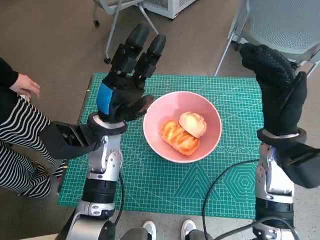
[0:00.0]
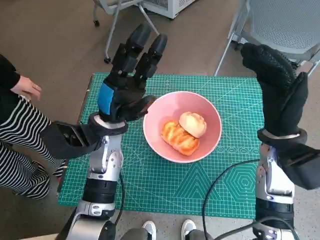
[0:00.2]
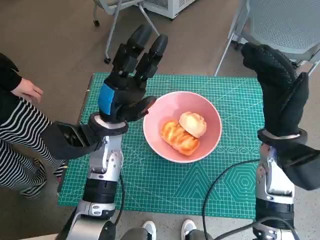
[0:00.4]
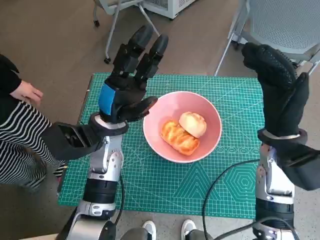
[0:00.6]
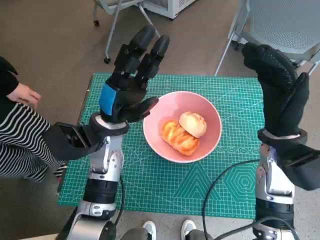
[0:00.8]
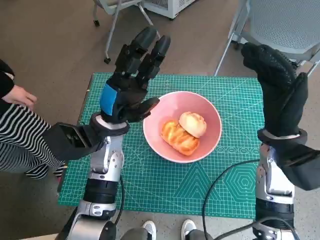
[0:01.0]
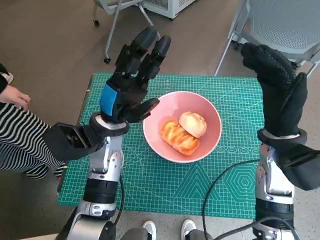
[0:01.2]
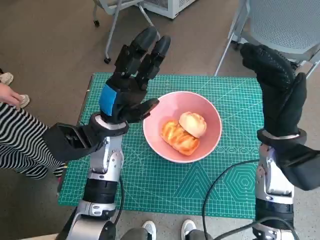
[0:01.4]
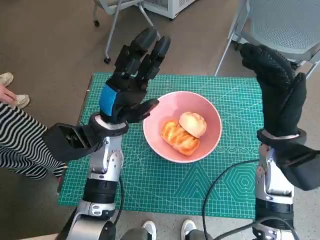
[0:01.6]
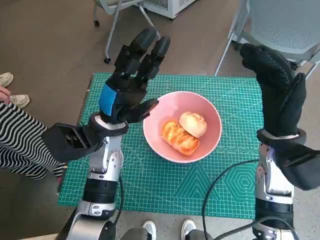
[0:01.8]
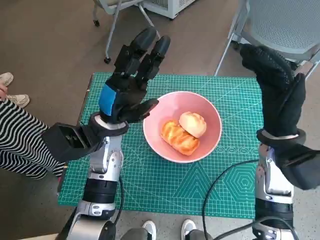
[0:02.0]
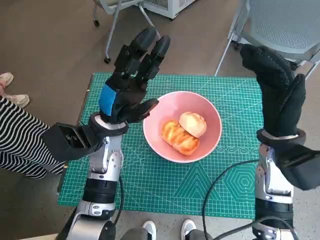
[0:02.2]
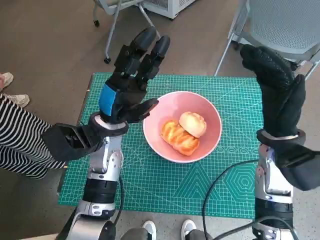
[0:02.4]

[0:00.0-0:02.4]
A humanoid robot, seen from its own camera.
Task of the whole recording: Push the bowl into the center of the table and put the bread into the bowl.
0:00.0 to 0:02.4: Both hands stay put.

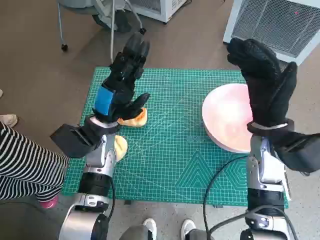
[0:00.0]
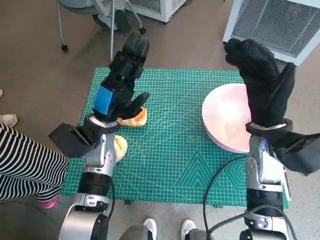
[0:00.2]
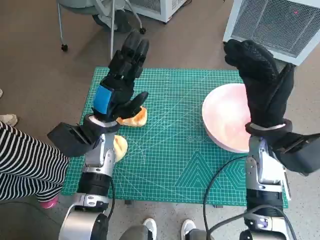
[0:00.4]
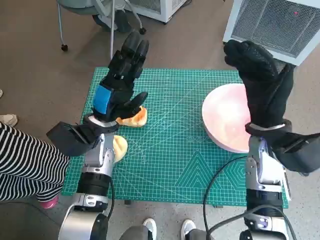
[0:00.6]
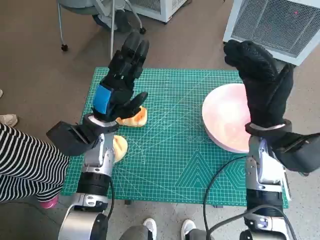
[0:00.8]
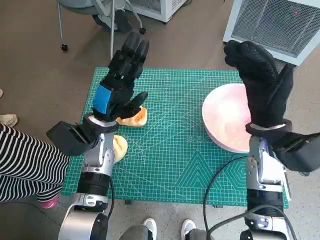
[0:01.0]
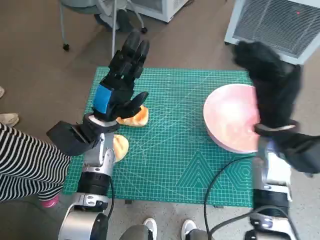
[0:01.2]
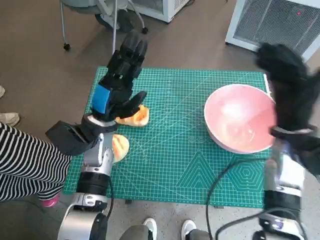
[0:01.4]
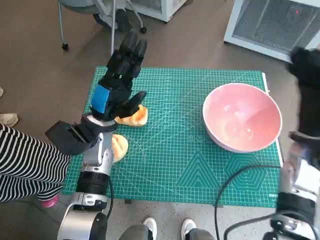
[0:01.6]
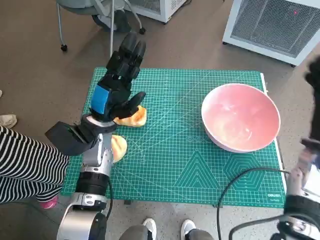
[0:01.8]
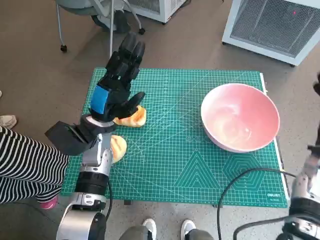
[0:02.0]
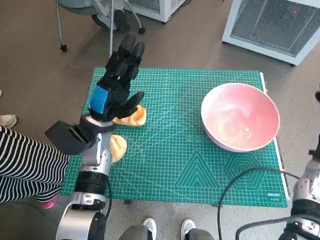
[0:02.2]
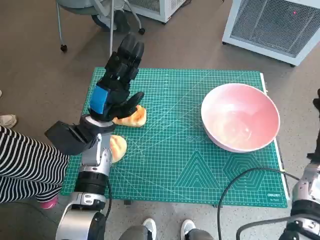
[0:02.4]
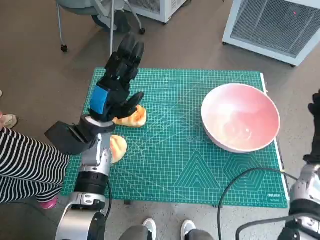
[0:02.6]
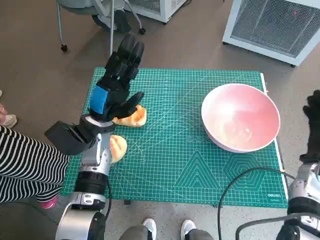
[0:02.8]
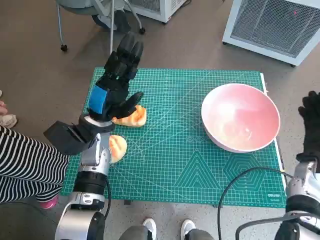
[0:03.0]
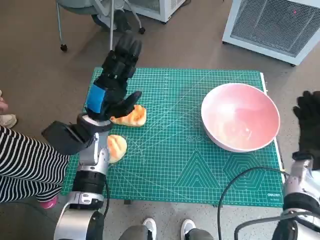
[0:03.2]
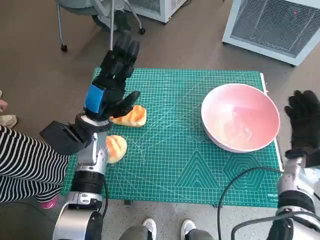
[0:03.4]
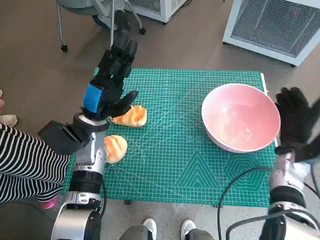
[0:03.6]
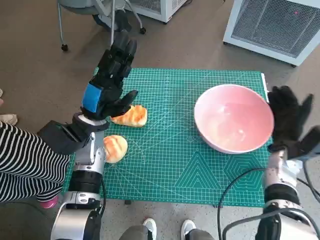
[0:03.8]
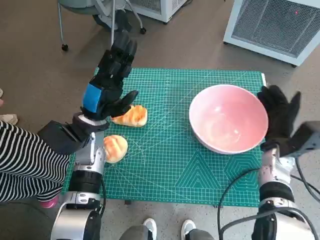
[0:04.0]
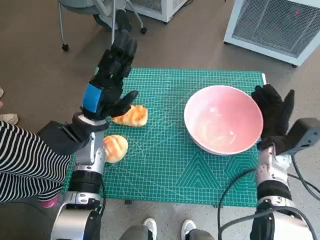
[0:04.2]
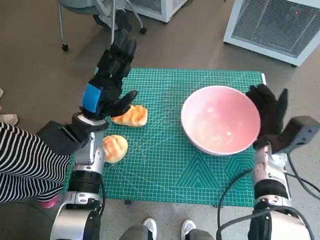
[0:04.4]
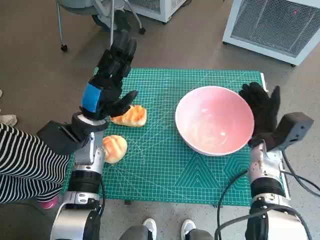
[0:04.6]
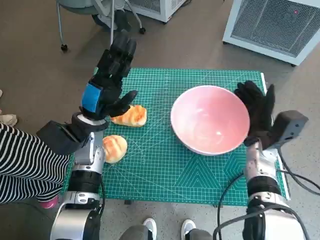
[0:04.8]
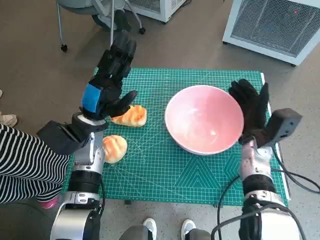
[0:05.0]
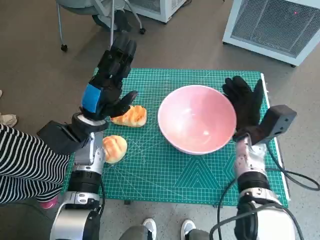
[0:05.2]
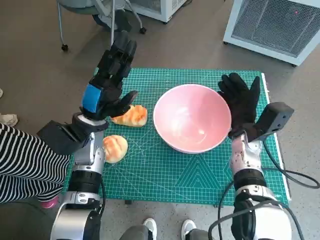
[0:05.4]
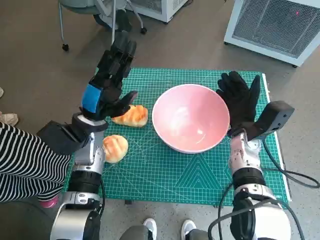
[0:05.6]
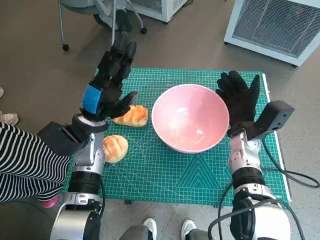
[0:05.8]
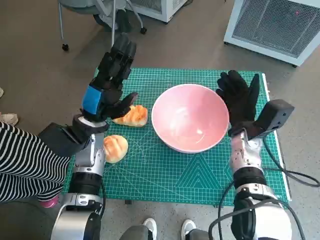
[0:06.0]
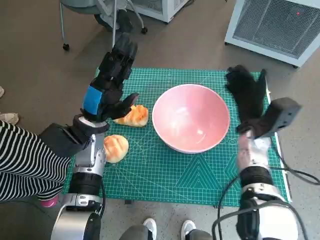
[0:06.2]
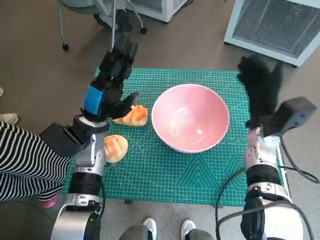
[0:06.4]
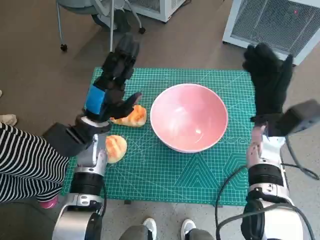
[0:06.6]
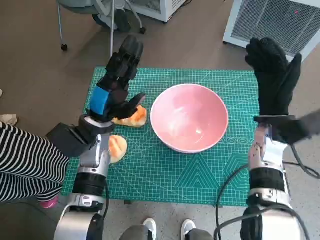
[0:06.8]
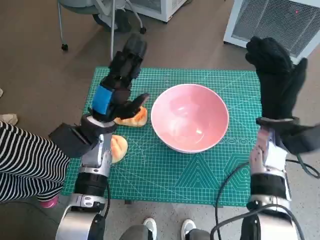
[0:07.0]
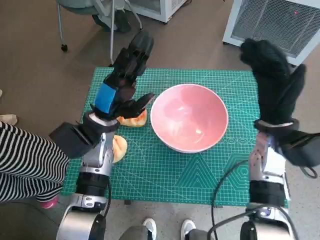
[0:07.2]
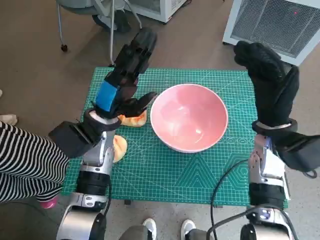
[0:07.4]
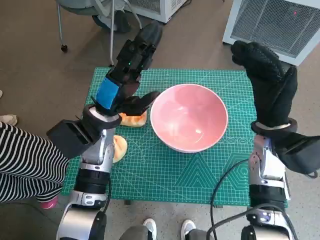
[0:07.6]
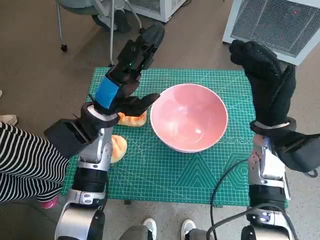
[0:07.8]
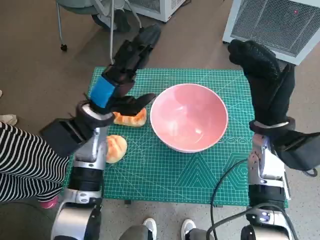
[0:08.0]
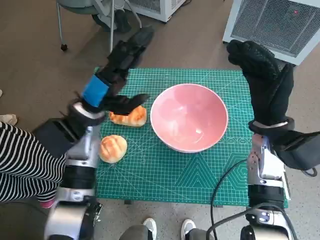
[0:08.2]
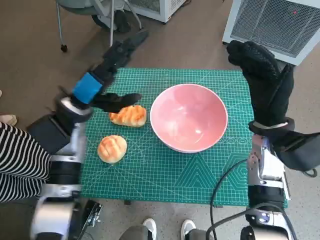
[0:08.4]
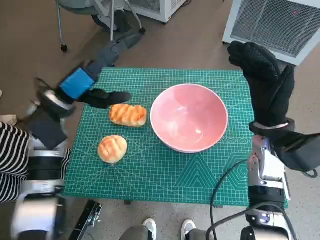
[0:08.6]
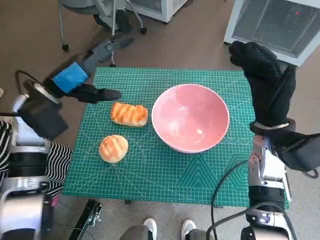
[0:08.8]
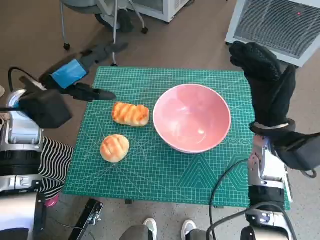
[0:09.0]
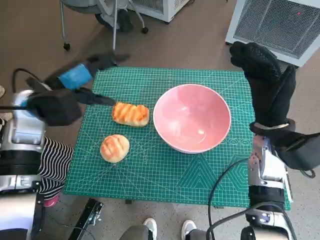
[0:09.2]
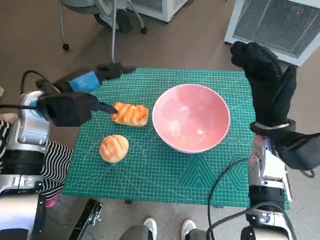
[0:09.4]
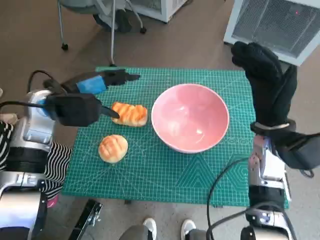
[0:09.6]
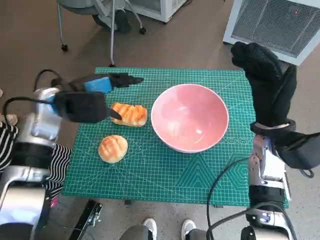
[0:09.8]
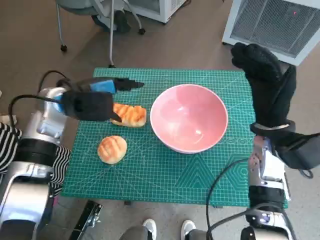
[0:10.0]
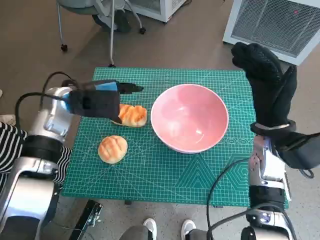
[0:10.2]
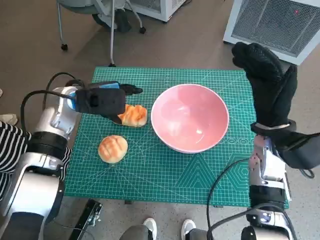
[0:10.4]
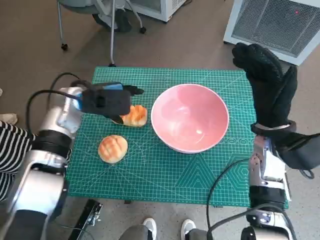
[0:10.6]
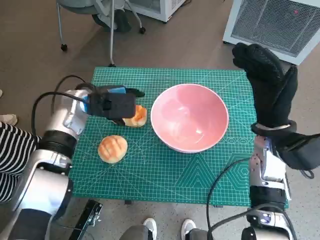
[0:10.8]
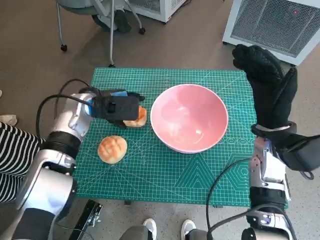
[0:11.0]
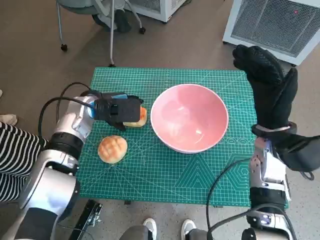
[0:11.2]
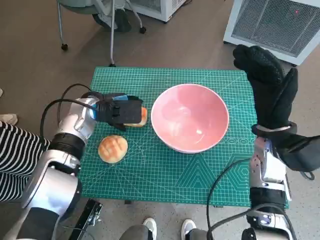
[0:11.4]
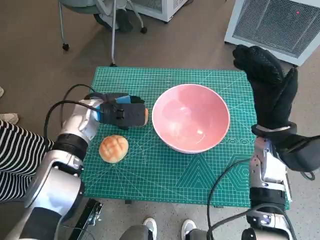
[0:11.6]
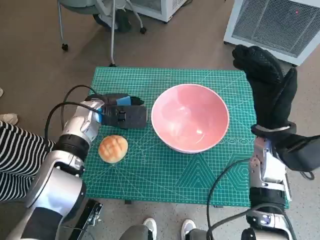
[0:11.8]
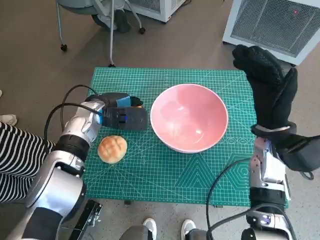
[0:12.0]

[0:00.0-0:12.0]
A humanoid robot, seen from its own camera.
Task of the whole recording: Push the bowl into the center of the table and put the bread into the bowl.
Step, 0:00.0 to 0:06.2: Move the pink bowl to the center of table with right hand.
0:01.6 to 0:03.0: The right hand moves downward and to the right, roughly 10 cm.
0:03.0 to 0:04.4: The right hand shifts roughly 10 cm to the left.
0:04.4 to 0:06.0: The right hand shifts roughly 5 cm to the left.
0:06.0 to 0:07.6: The right hand is displaced upward by about 10 cm.
0:07.6 to 0:09.0: The left hand moves to the left and upward, about 10 cm.
0:09.0 to 0:10.4: The left hand shifts by about 5 cm.
0:10.4 to 0:12.0: The left hand moves downward, approximately 5 cm.

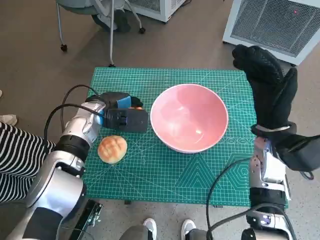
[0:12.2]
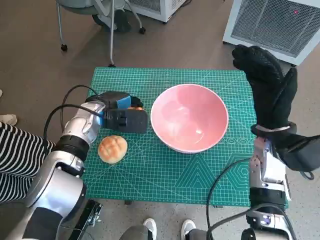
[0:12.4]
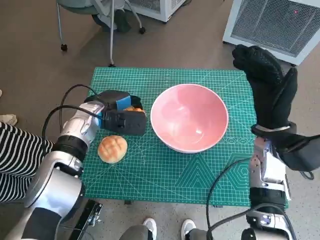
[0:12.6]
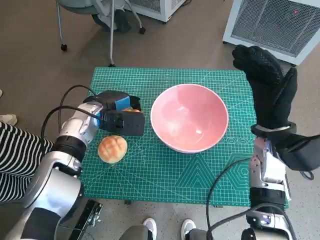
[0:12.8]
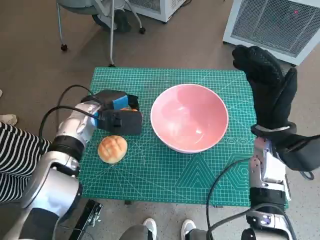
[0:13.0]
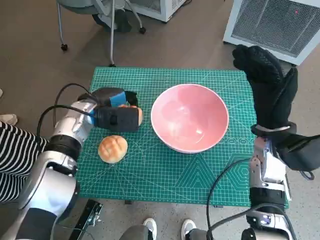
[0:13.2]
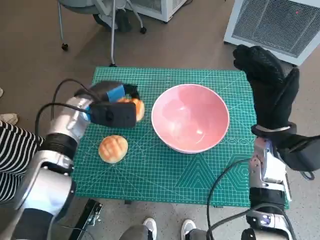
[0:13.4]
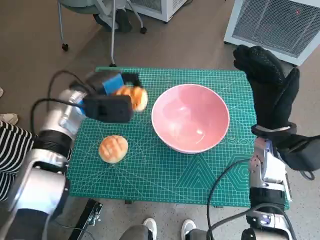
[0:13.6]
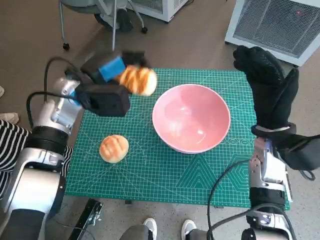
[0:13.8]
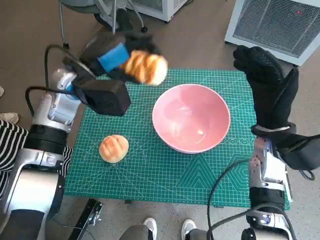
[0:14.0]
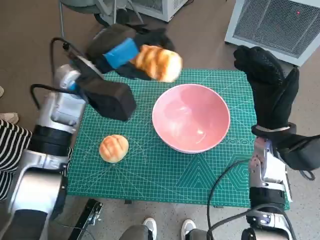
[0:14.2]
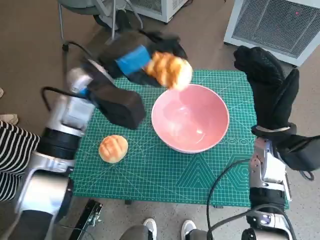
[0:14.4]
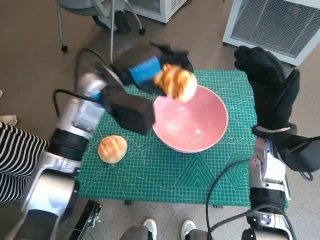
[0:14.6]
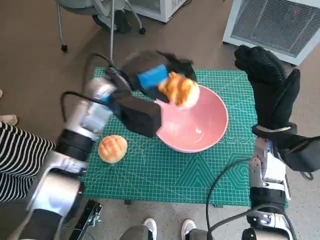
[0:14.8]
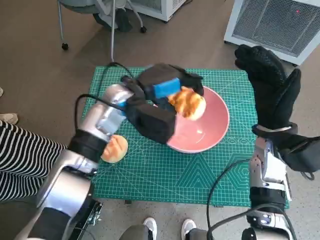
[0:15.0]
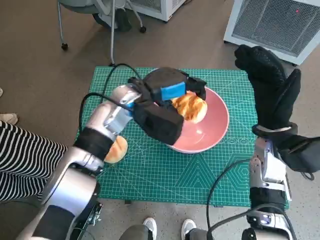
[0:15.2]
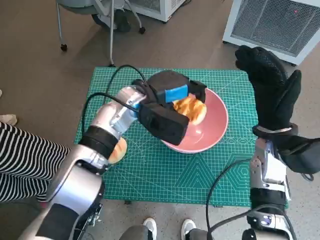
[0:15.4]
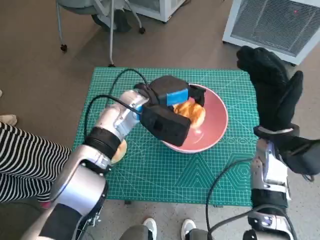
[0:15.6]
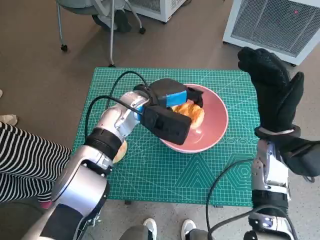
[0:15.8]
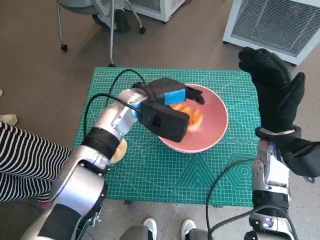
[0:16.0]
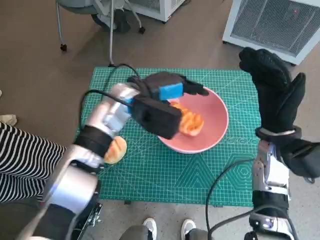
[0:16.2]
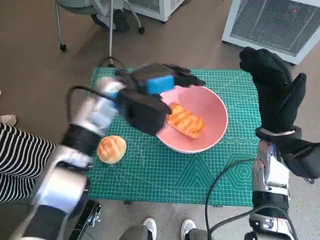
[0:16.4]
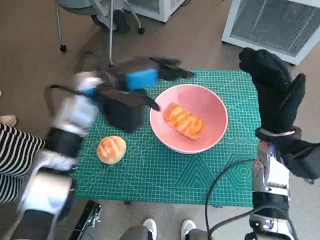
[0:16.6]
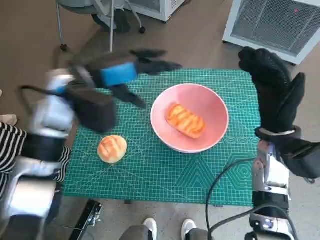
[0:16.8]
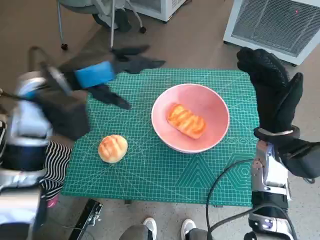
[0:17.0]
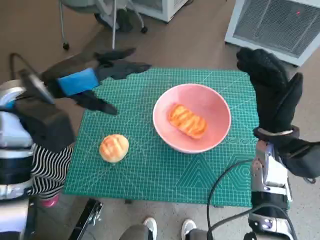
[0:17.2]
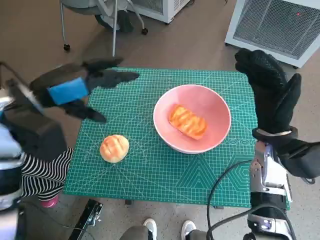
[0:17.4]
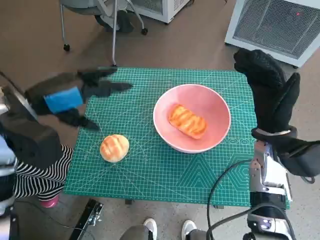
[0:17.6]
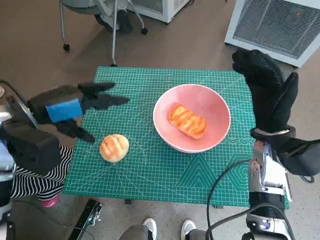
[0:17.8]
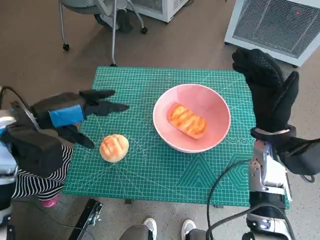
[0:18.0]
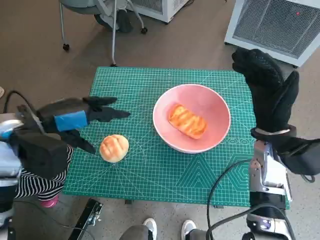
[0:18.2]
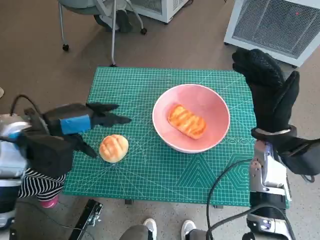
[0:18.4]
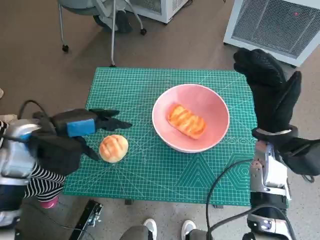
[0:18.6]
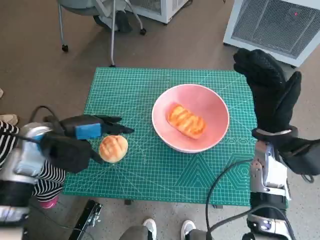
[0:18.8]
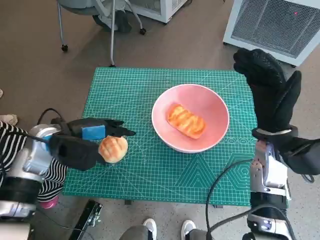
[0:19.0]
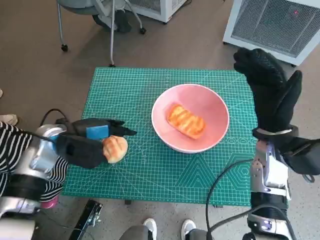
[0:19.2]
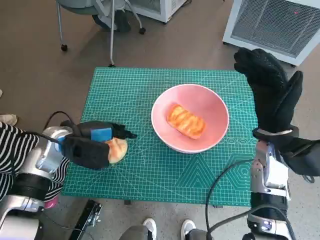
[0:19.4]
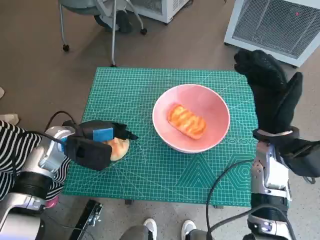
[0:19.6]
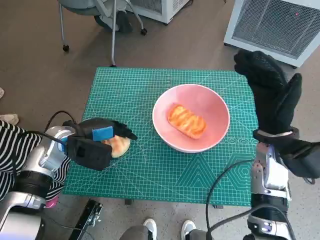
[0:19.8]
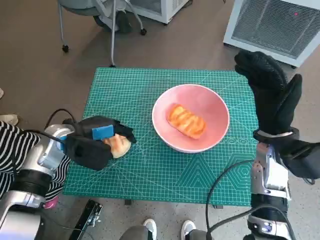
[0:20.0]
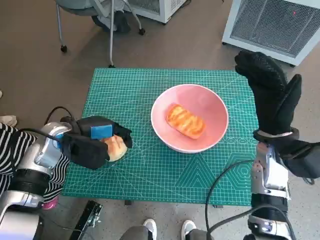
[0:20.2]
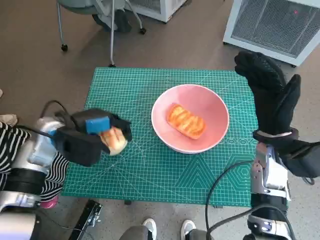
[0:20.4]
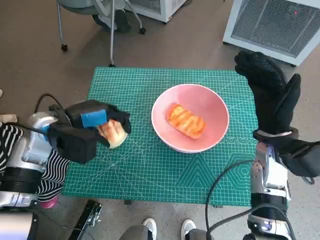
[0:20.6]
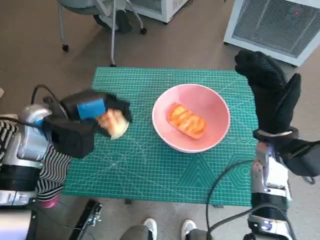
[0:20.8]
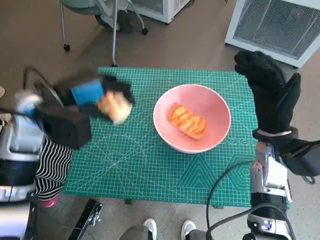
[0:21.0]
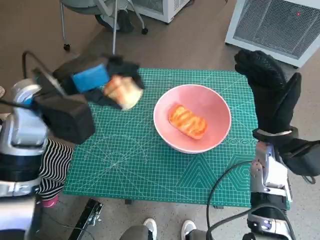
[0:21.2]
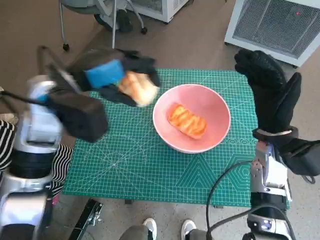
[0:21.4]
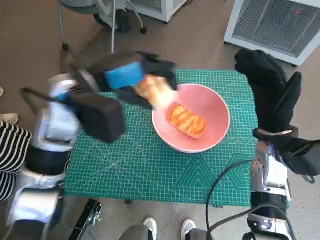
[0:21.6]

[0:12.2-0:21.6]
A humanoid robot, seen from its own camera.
Task of the whole recording: Push the bowl into the center of the table and put the bread into the bowl.
Step, 0:12.4 to 0:16.4: Place the long bread in pink bowl with left hand.
Step, 0:16.8 to 0:19.8: Grasp the round bread with left hand.
0:12.2 to 0:13.8: The left hand heads upward, covering about 5 cm.
0:13.8 to 0:15.4: The left hand is displaced to the right by about 10 cm.
0:15.4 to 0:17.0: The left hand heads to the left and upward, covering some 15 cm.
0:17.0 to 0:18.4: The left hand moves downward and to the left, roughly 5 cm.
0:18.4 to 0:20.0: The left hand moves downward, about 10 cm.
0:20.0 to 0:21.6: The left hand moves upward and to the right, approximately 15 cm.
